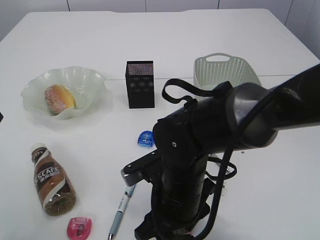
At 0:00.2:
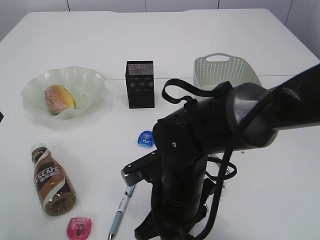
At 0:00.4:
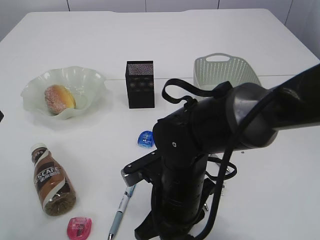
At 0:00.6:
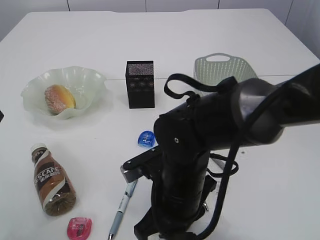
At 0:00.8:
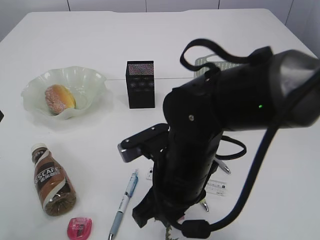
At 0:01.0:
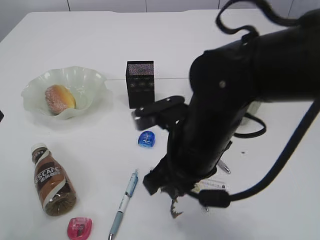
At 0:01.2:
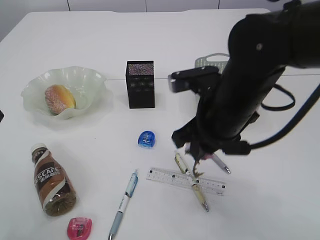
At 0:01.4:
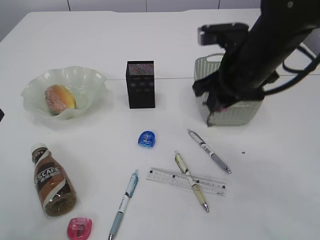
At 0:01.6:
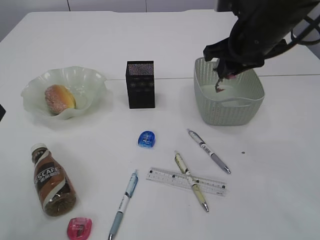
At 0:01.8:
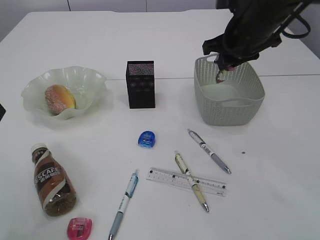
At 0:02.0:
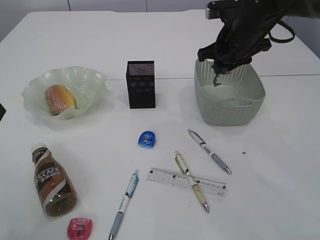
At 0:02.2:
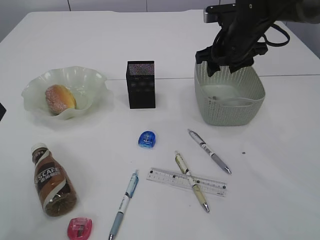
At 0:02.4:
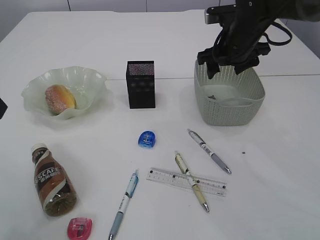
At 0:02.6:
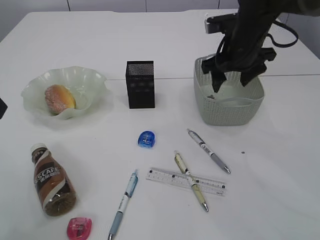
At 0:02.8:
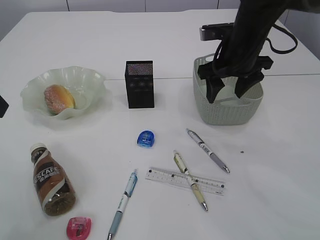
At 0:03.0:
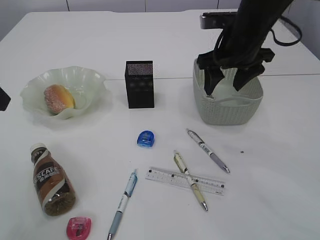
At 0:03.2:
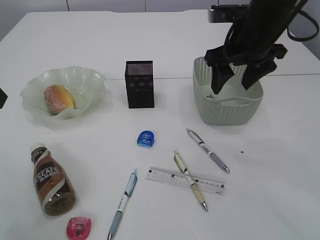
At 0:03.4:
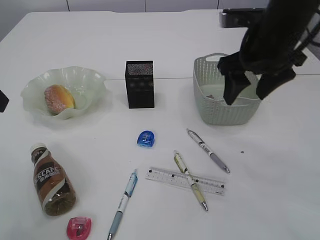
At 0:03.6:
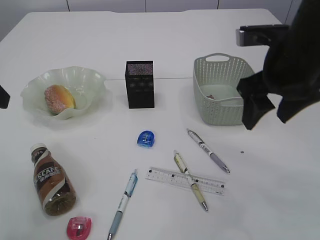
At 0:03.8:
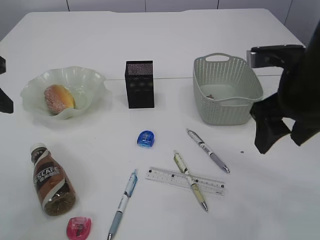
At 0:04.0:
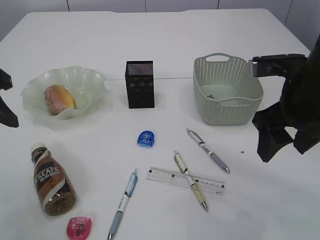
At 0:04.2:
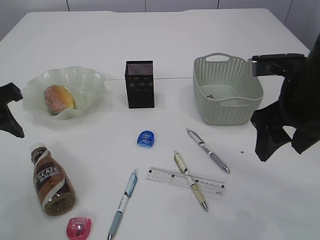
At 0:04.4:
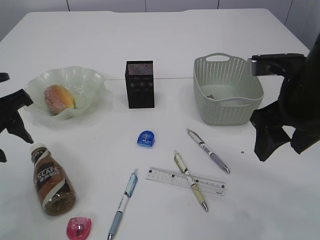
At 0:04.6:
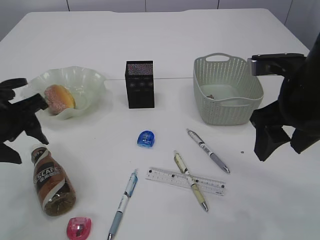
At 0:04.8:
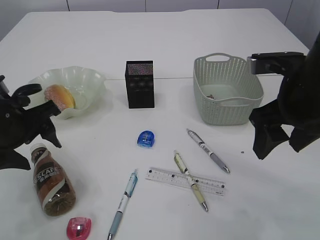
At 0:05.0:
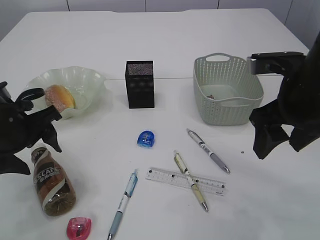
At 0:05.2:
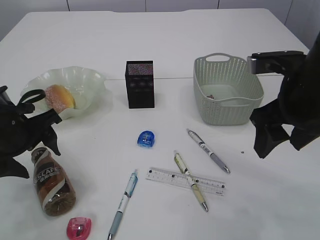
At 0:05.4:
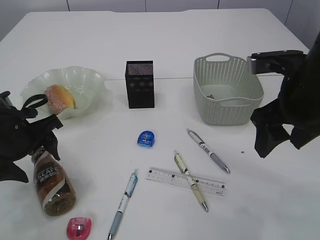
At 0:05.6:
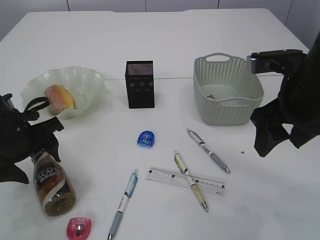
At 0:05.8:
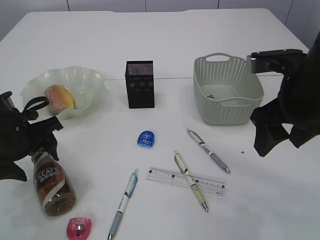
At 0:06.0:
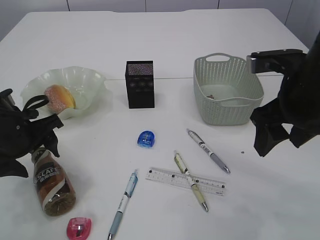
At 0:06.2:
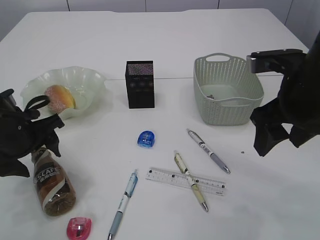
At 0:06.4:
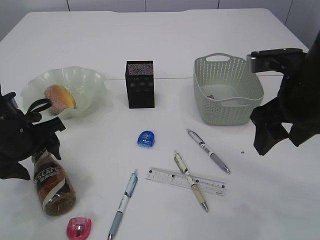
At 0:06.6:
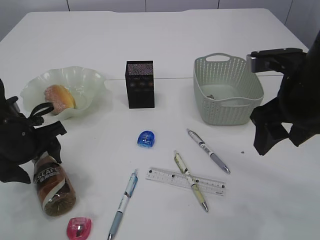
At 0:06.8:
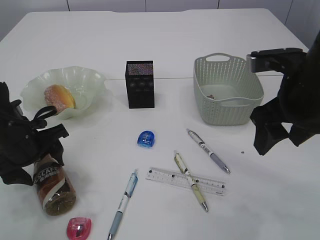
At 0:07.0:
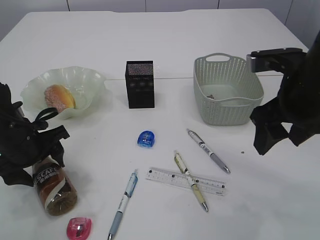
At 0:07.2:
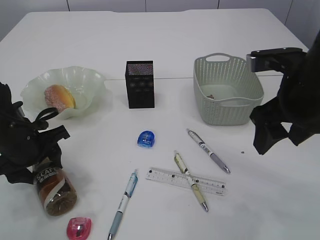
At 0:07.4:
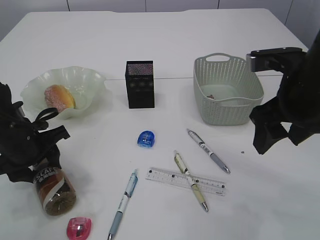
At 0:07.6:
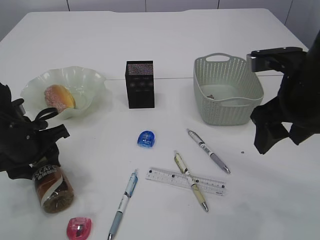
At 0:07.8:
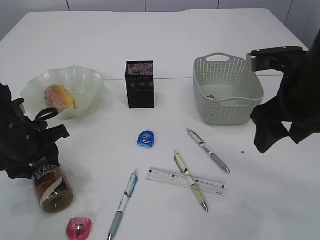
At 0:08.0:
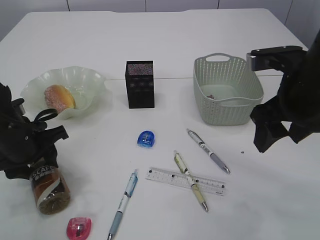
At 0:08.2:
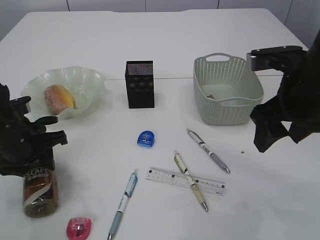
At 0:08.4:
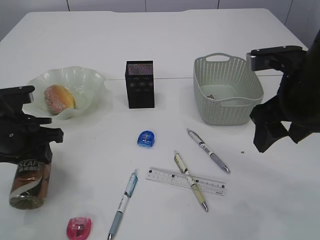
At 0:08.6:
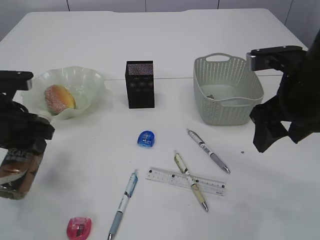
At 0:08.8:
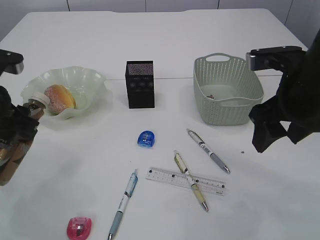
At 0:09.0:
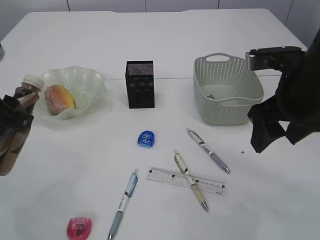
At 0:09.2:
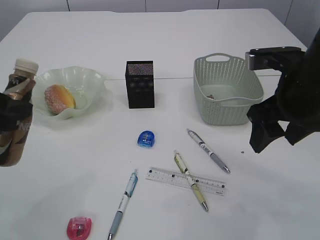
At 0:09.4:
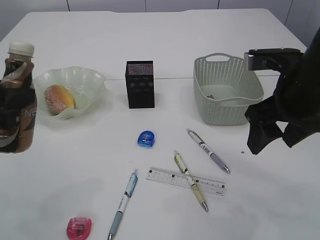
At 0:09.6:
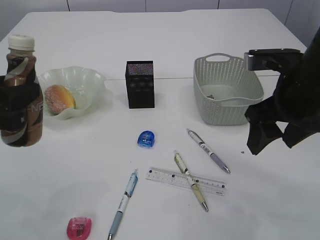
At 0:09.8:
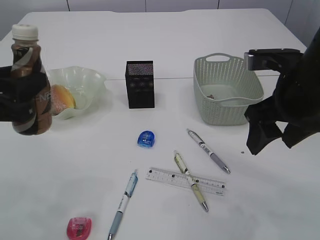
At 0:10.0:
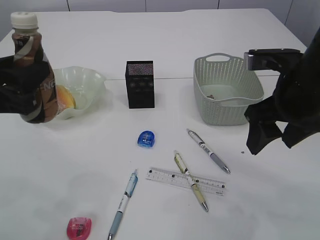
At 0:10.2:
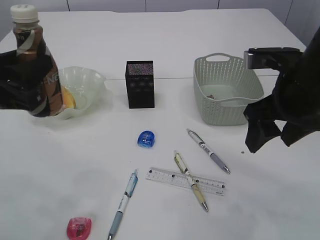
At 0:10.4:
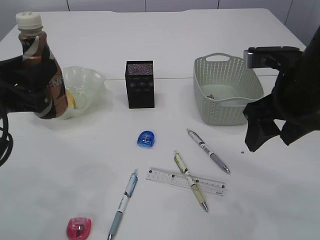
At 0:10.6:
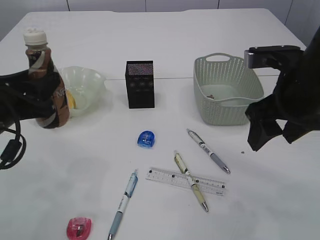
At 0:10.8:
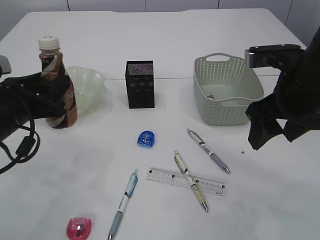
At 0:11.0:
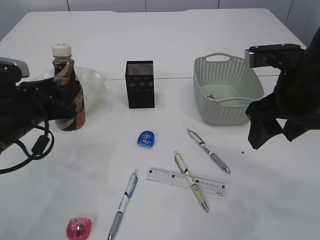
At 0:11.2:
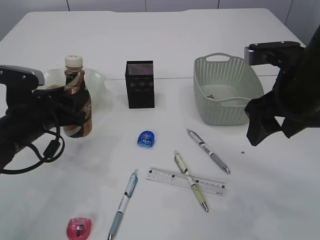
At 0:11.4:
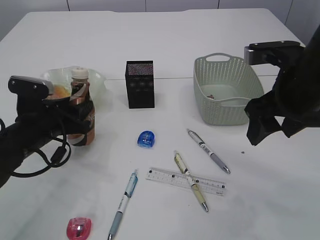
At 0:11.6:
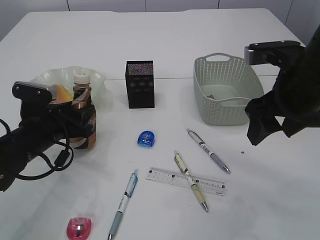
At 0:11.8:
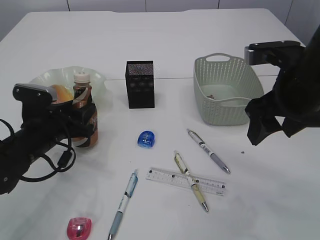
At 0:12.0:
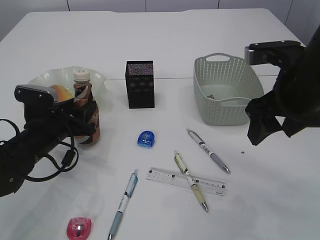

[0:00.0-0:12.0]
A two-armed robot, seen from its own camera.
Step, 0:01.6 to 0:02.8: Place the waste paper in the basket.
Step, 0:03.0 to 0:08.8: Pick up the bottle with the left arm.
0:00.0 to 0:01.6: The right gripper heads upward, forward and to the right, covering roughly 25 cm, and closes its fingers.
0:01.6 to 0:03.0: The right gripper opens.
0:03.0 to 0:04.4: The right gripper heads backward, covering some 15 cm. Meanwhile the left gripper moves downward, some 10 cm, and opens up.
0:04.4 to 0:06.0: The left gripper goes approximately 5 cm downward, and opens its fingers.
0:06.0 to 0:07.6: The left gripper closes its fingers.
0:07.6 to 0:09.0: The left gripper goes approximately 15 cm upward and backward.
0:10.4 to 0:12.0: The left gripper goes approximately 15 cm downward and forward.

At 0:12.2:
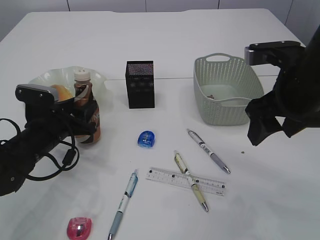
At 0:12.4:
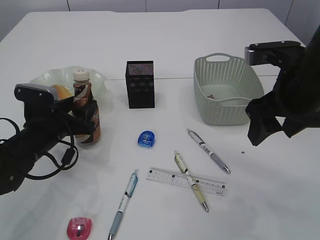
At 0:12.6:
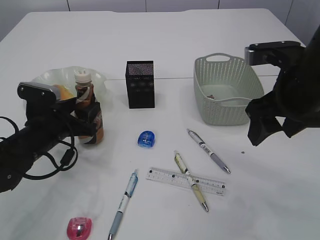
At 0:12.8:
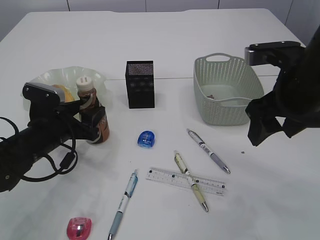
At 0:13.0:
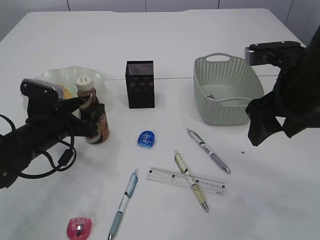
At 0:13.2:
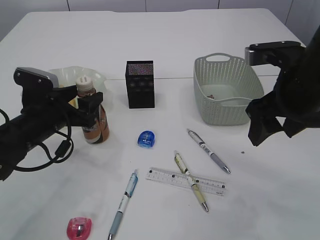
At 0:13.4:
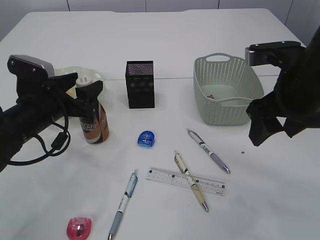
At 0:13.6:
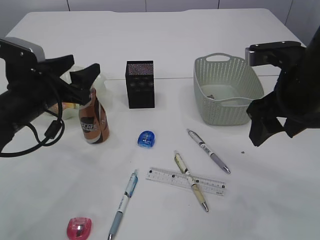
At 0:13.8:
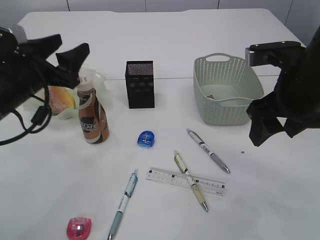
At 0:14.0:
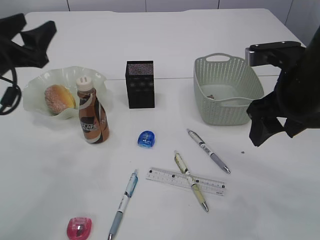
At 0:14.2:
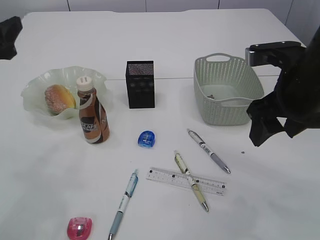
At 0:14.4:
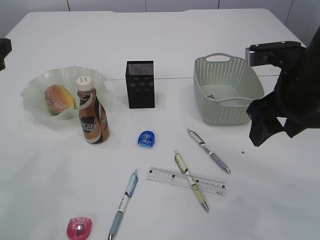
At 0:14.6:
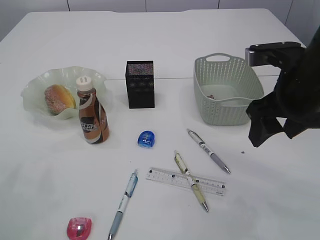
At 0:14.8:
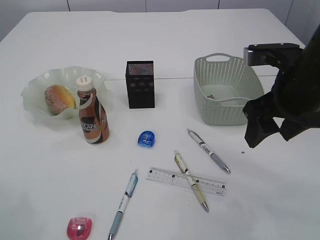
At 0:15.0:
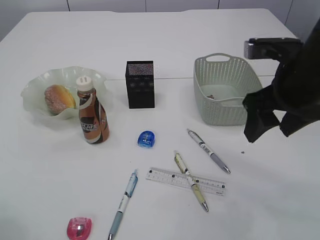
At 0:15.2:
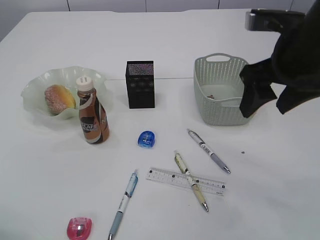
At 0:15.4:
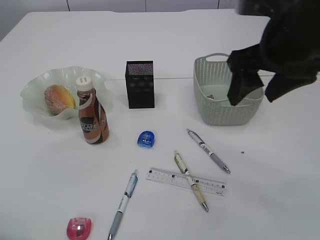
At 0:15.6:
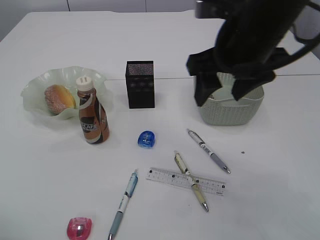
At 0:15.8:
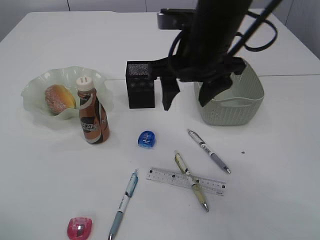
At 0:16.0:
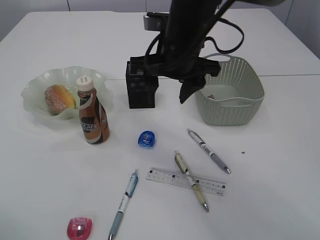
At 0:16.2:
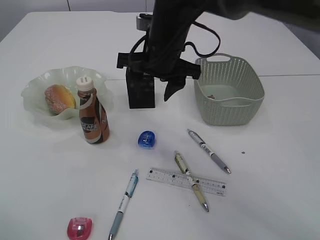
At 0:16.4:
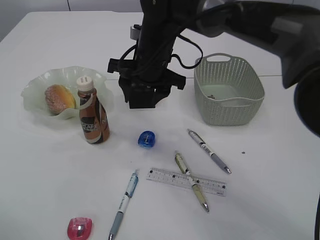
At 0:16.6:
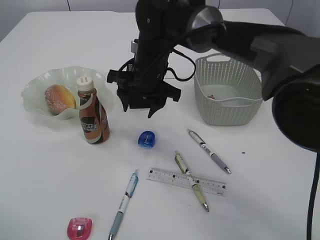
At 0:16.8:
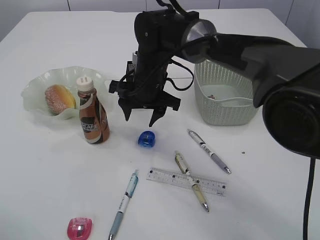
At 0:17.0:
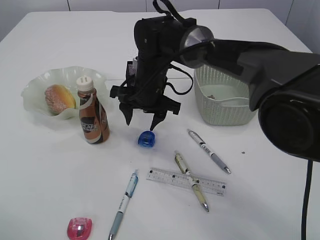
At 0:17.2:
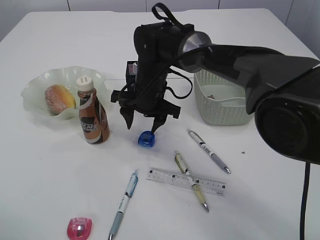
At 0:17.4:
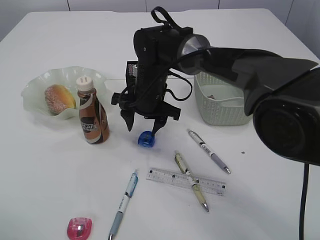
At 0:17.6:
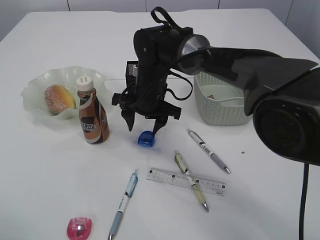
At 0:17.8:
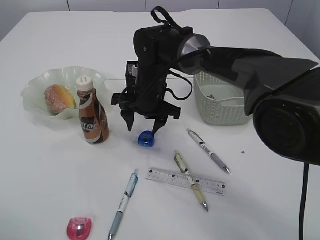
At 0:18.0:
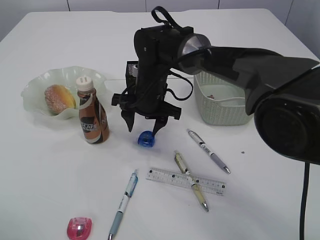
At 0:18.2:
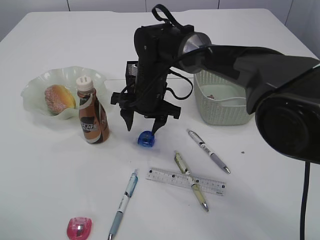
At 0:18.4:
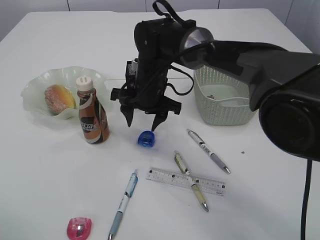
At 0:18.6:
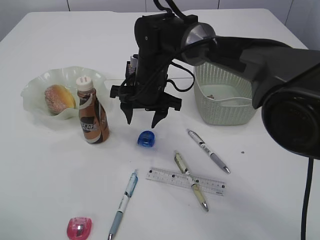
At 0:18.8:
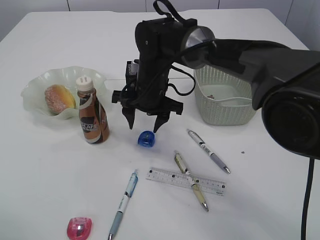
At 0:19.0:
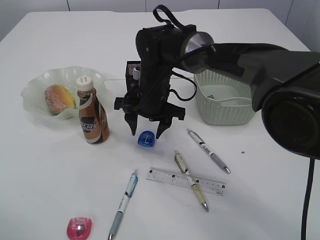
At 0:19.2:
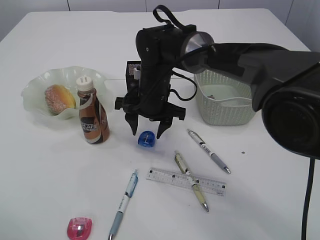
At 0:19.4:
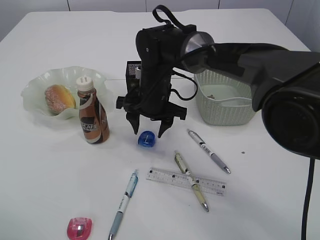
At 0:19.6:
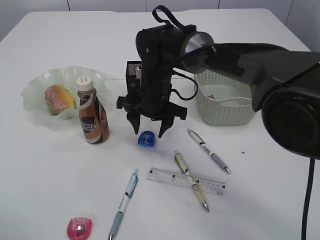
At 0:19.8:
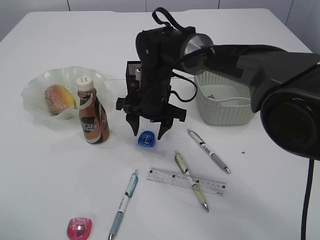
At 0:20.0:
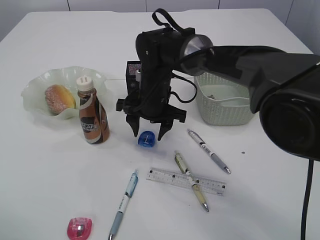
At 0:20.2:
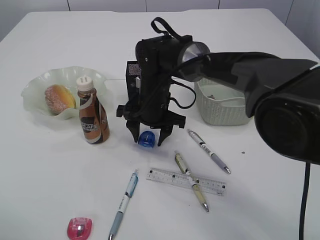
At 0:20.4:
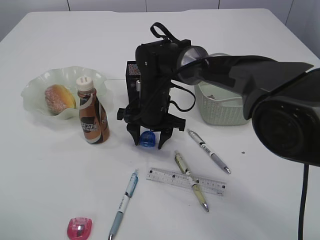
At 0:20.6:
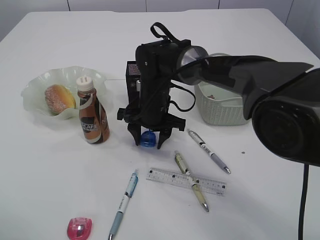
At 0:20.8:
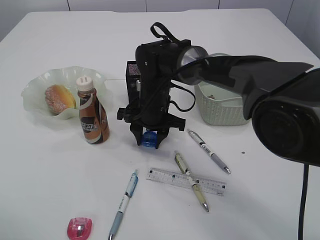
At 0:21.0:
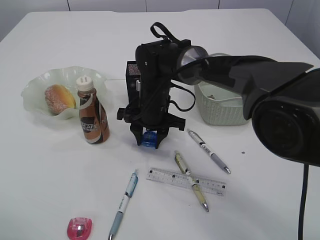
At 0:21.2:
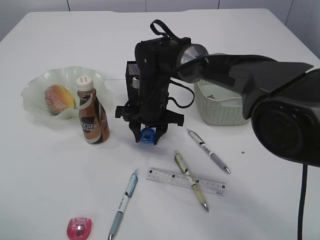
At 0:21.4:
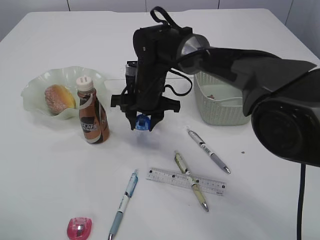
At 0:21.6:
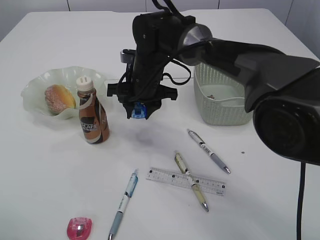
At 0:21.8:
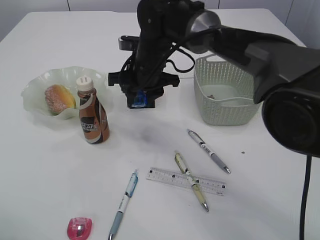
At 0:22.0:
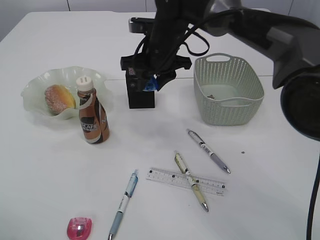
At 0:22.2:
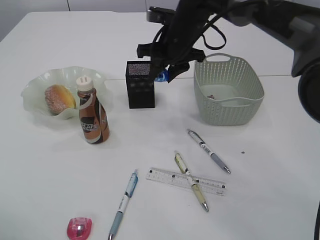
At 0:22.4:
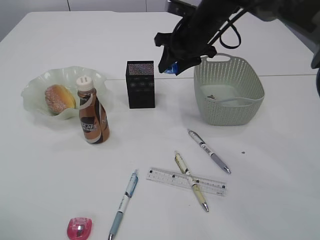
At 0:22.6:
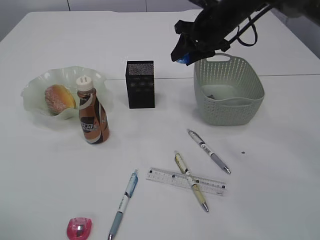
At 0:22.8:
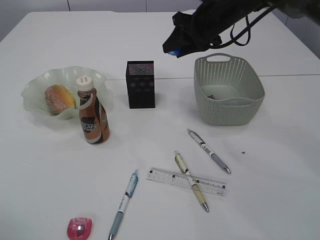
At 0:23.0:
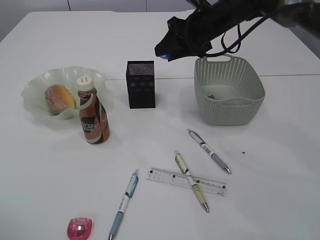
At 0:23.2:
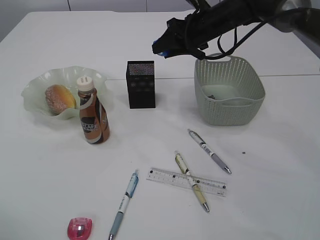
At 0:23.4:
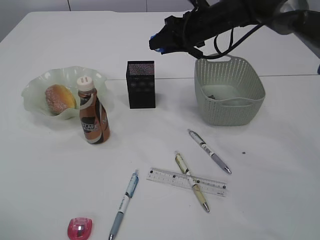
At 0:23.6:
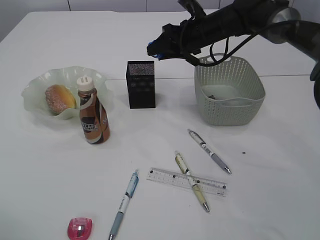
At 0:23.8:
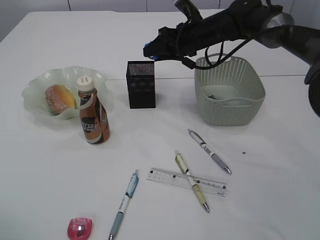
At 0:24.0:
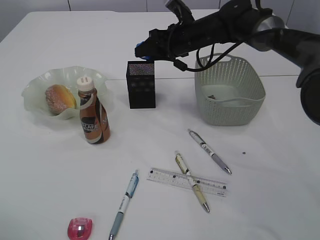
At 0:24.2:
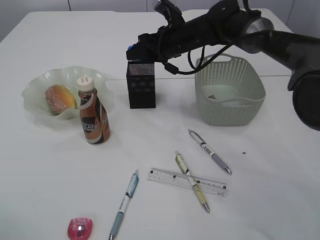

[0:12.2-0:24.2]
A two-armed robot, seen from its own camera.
Step, 0:14.0 to 0:21.6: Pick up the blue pencil sharpener.
0:12.2 to 0:13.8: The left gripper goes some 10 cm upward, and opens its fingers.
0:13.8 to 0:15.2: The left gripper goes some 15 cm backward and to the left.
0:15.2 to 0:16.6: The right gripper goes some 25 cm to the left, forward and downward.
0:16.6 to 0:19.8: The grippers move only a little.
0:19.8 to 0:21.2: The grippers make only small movements.
0:21.2 to 0:22.6: The right gripper moves to the right, upward and forward, approximately 20 cm.
0:22.6 to 0:24.2: The right gripper moves to the left, some 5 cm.
